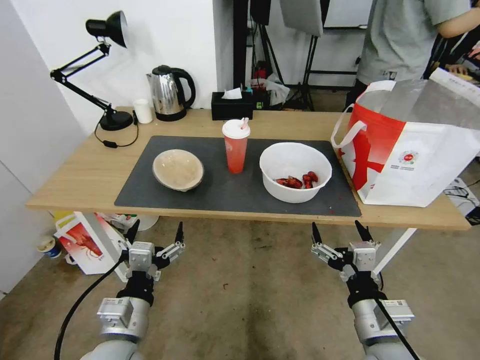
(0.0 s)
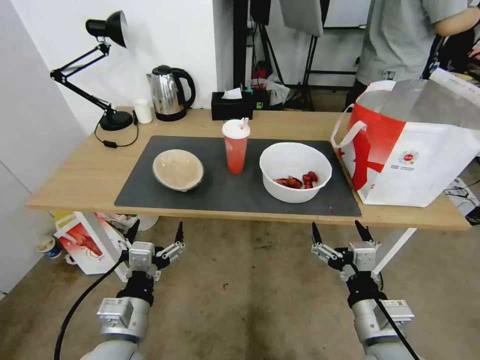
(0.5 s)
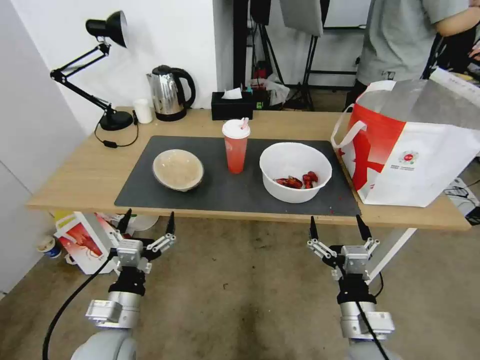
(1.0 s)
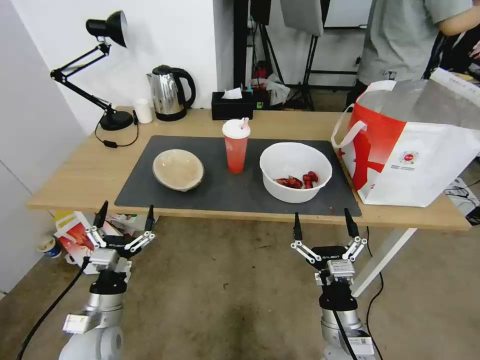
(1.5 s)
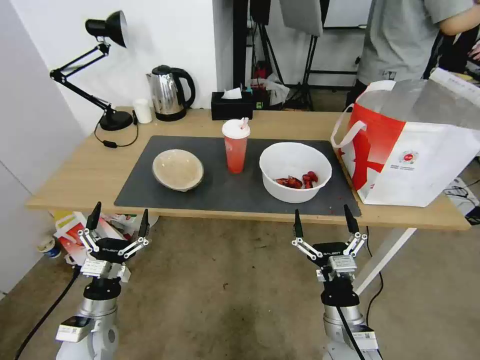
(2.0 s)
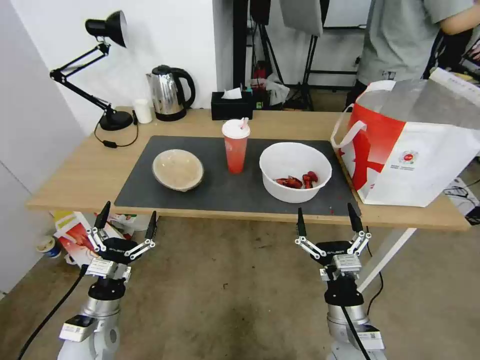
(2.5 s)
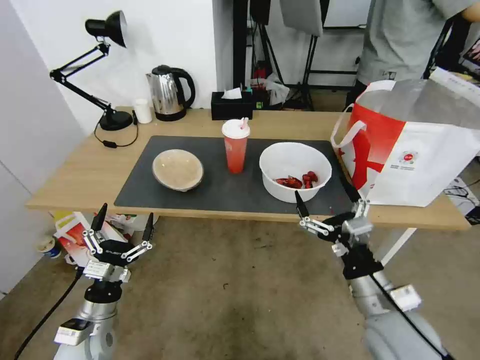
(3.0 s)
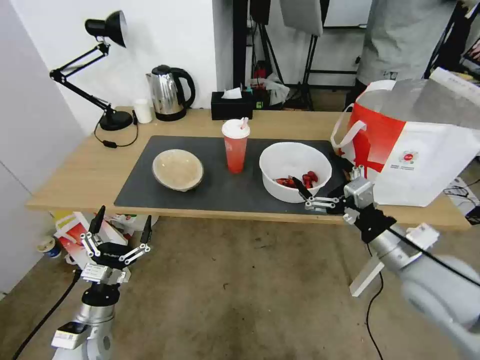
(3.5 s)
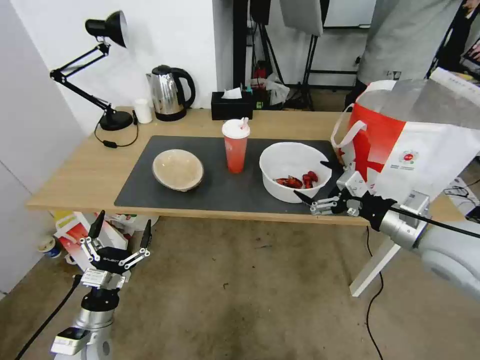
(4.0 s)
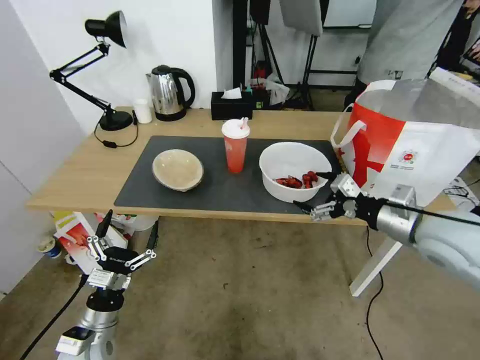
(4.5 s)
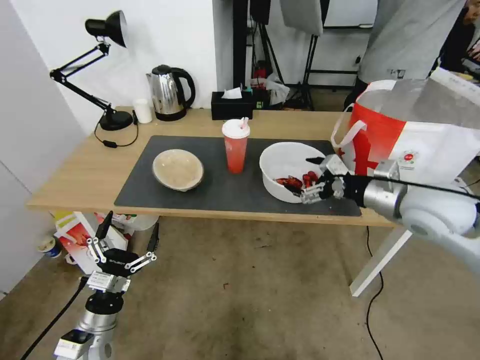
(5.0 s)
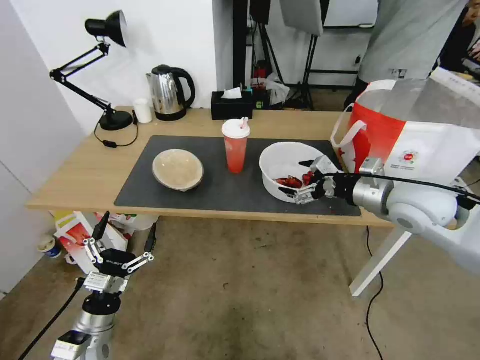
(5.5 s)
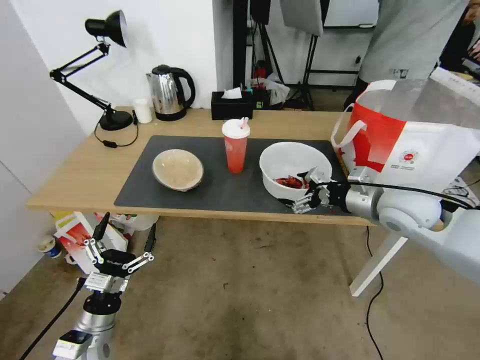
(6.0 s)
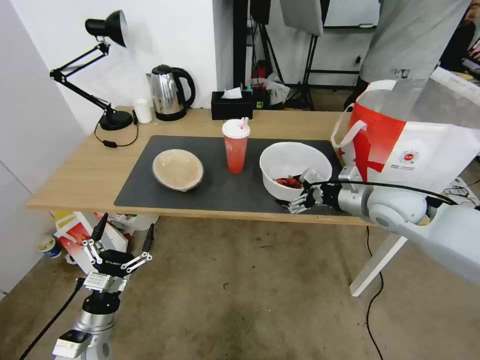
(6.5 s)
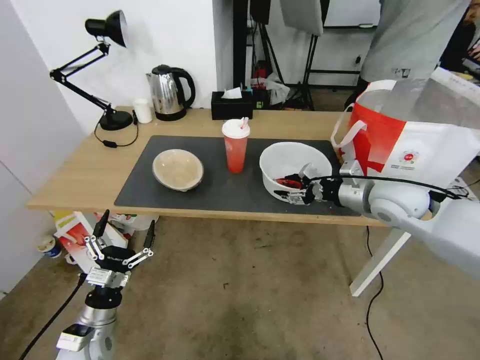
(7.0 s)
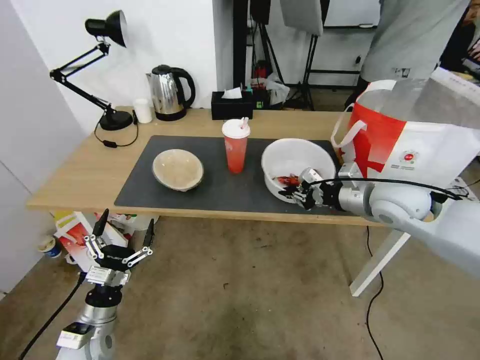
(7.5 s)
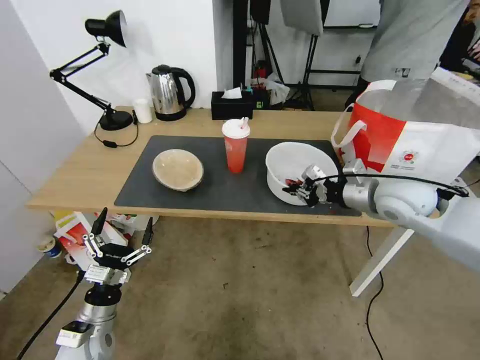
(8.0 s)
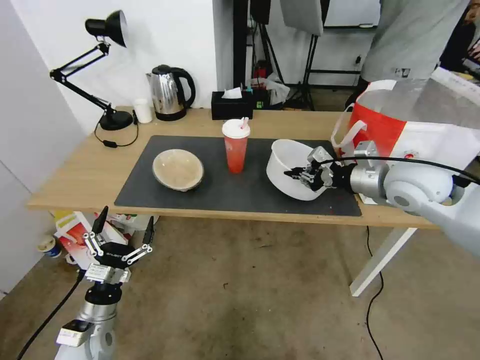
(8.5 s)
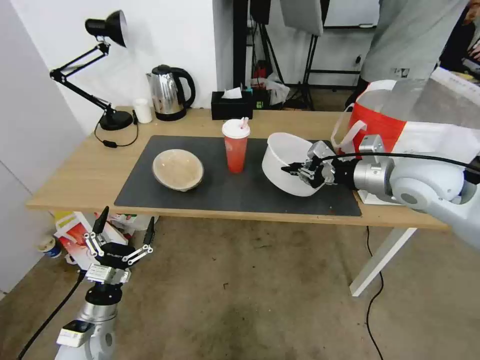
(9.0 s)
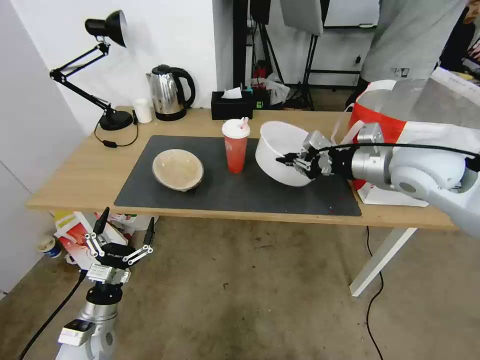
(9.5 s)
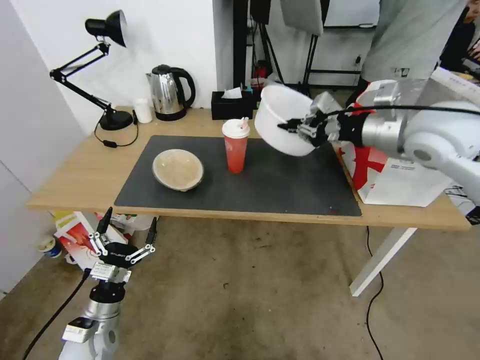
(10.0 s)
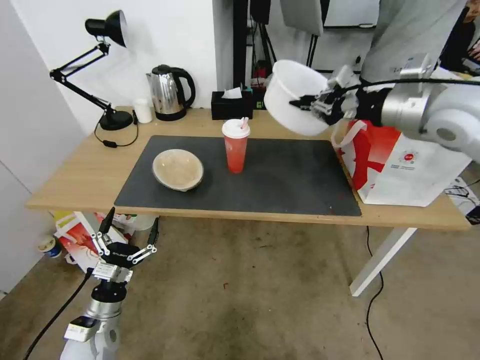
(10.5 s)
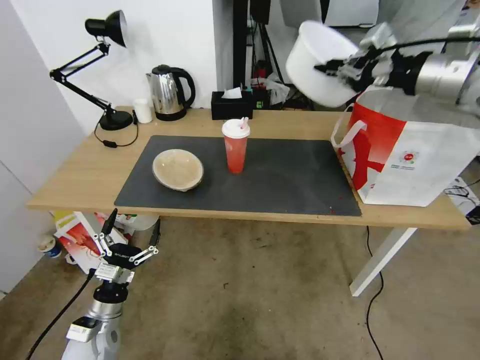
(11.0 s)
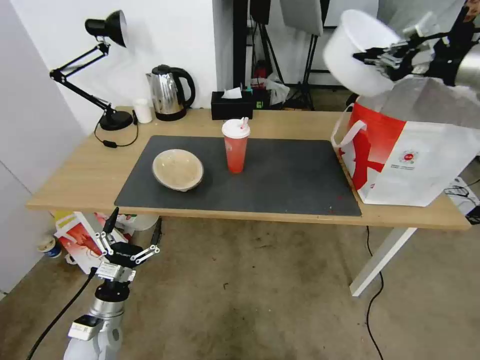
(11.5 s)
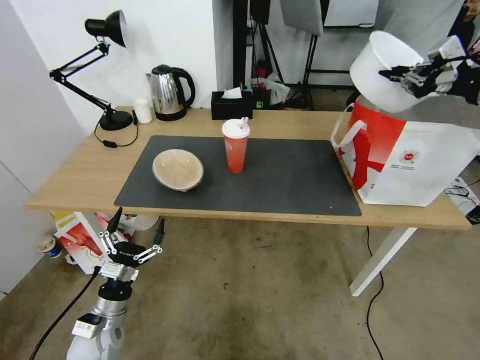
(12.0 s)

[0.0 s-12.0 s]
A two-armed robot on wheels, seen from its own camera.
Task of the whole recording: Pick up the trash from the table and place it into the takeout bag.
2.0 to 4.0 s: The right gripper travels upward, to the right and forward by about 25 cm.
4.0 to 6.0 s: The right gripper travels forward by some 10 cm.
6.0 to 8.0 s: The right gripper closes.
8.0 to 10.0 s: The right gripper goes some 15 cm upward.
10.0 to 12.0 s: The right gripper shifts approximately 15 cm to the right.

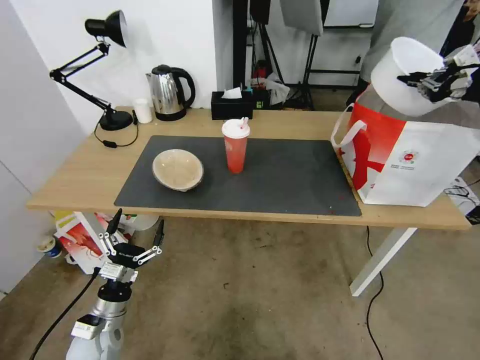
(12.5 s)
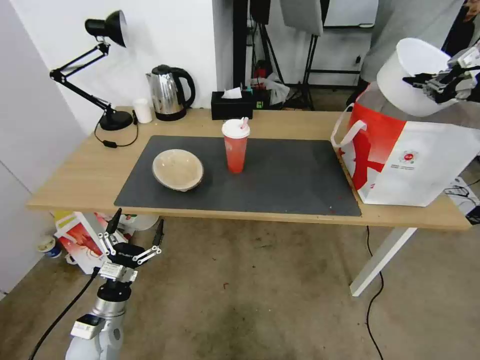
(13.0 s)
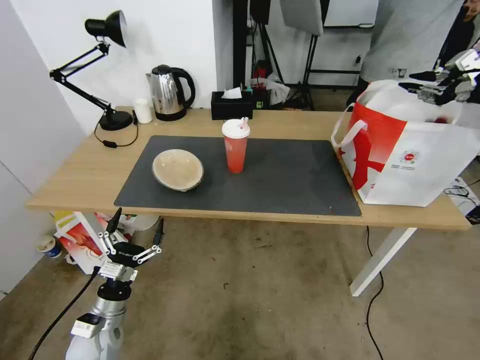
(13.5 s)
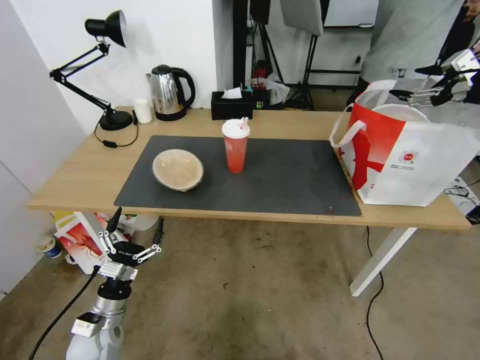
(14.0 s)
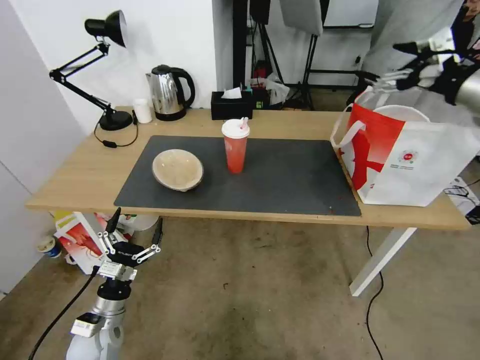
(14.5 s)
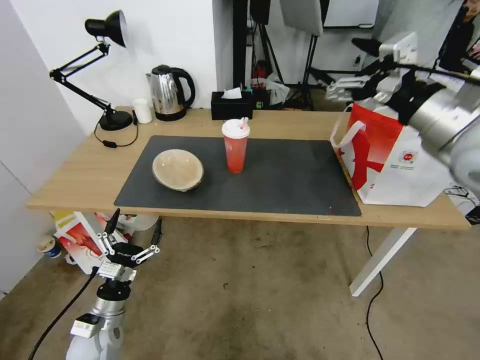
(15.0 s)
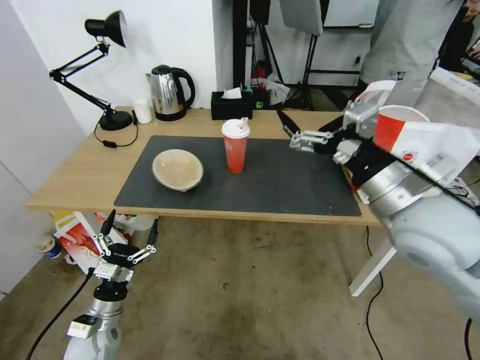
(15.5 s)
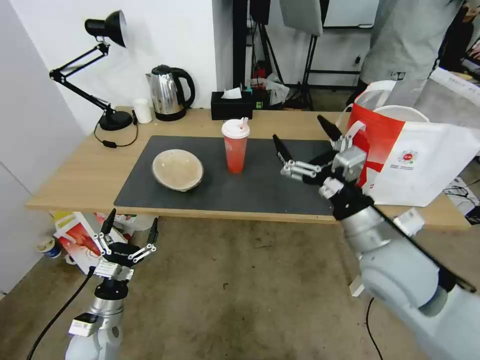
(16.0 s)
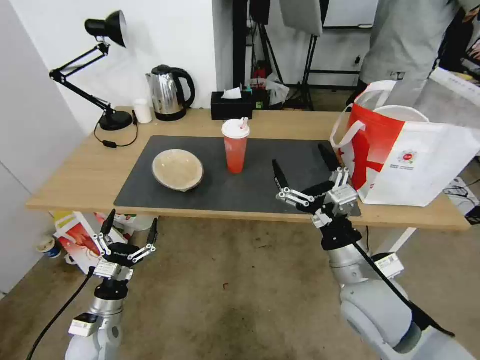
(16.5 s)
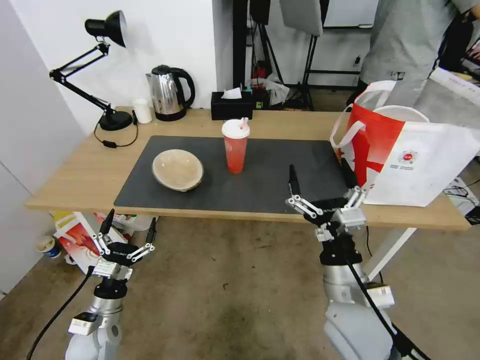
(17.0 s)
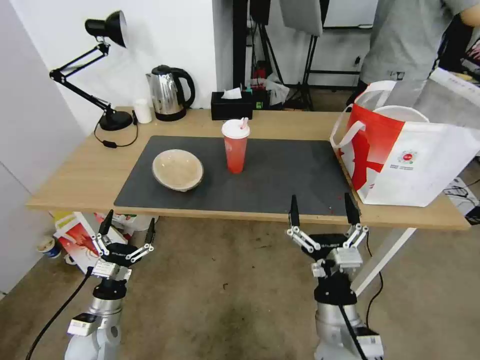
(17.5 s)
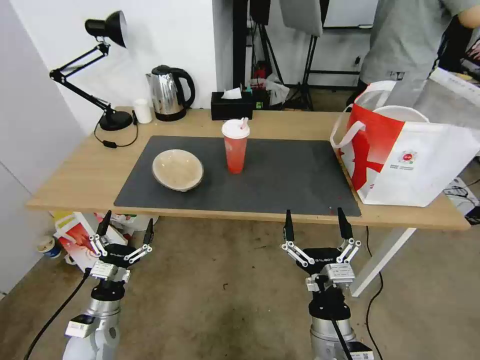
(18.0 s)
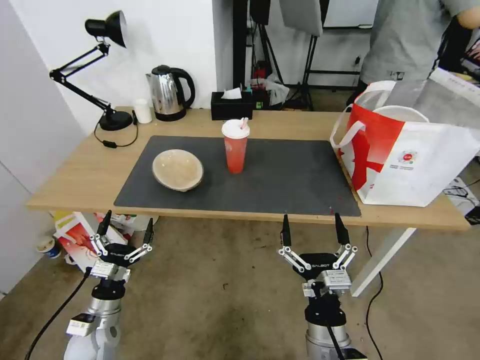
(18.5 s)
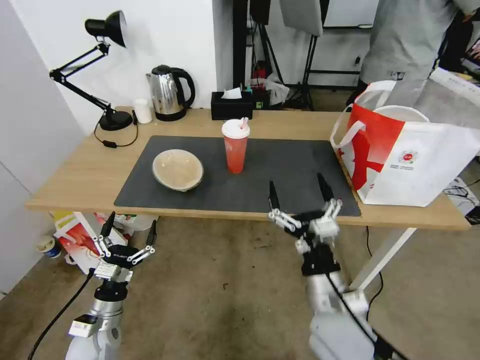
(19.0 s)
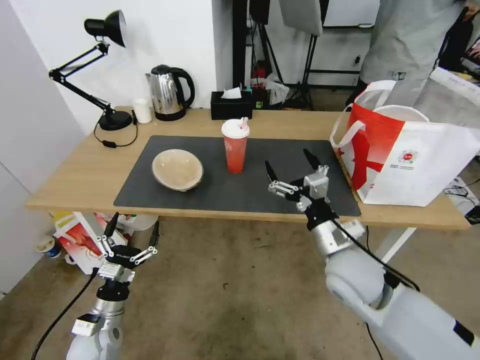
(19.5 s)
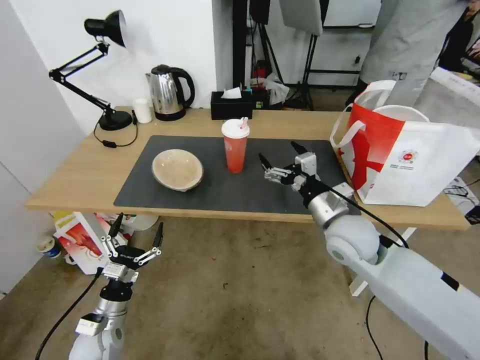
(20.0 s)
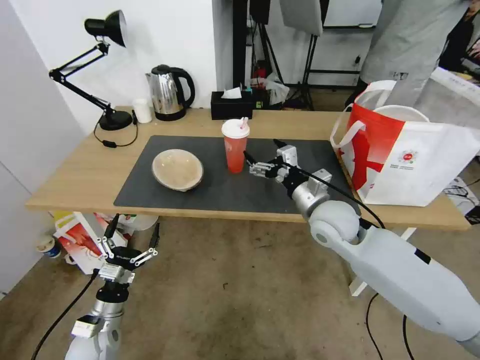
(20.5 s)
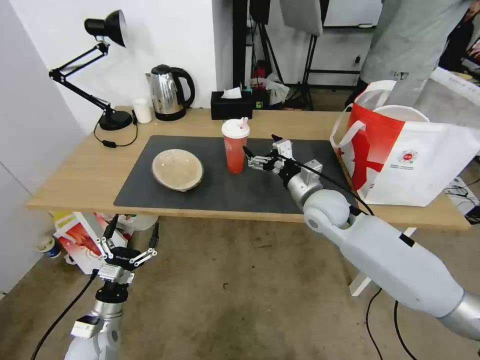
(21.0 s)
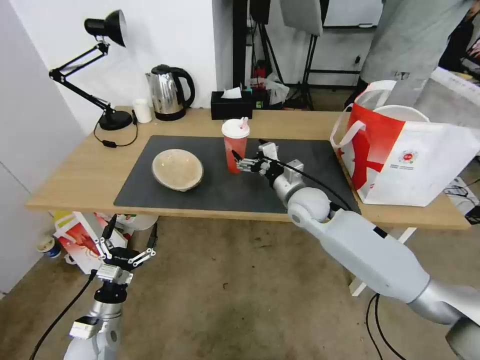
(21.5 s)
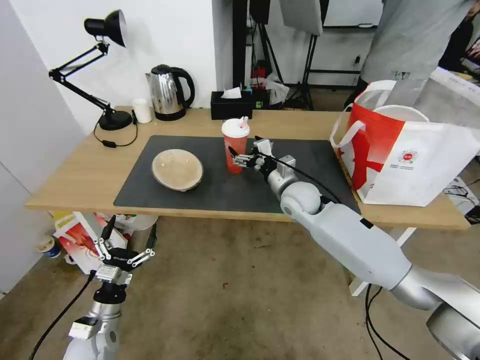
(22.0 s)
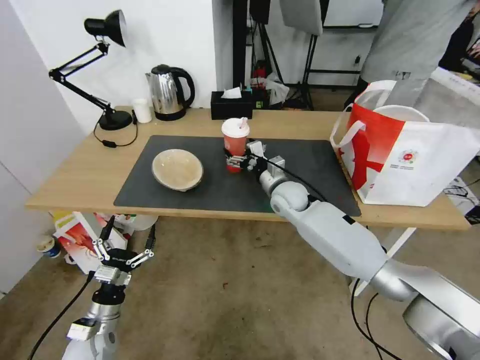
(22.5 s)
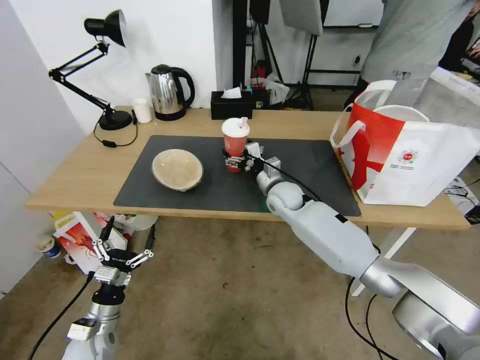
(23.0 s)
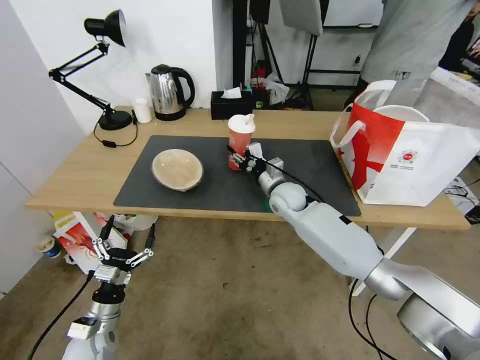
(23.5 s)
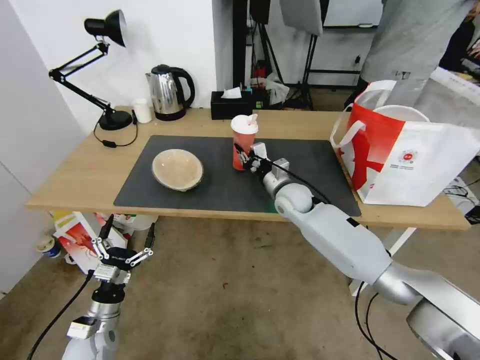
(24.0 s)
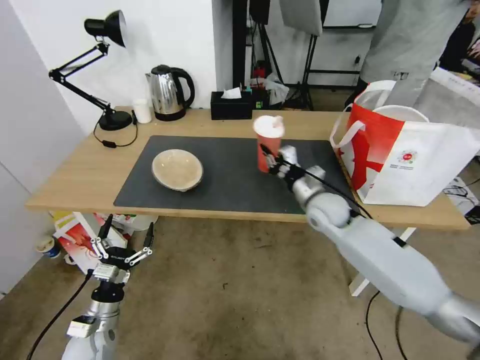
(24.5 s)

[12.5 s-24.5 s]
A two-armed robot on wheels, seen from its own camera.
Task of the whole recording: Pick up the trash from the table and place it into the takeout bag.
12.5 to 14.5 s: The right gripper is displaced to the left by some 10 cm, and opens its fingers.
14.5 to 16.5 s: The right gripper travels downward, to the left and backward by approximately 40 cm.
16.5 to 18.5 s: The right gripper heads downward, backward and to the left, covering about 15 cm.
18.5 to 20.5 s: The right gripper travels forward by about 25 cm.
20.5 to 22.5 s: The right gripper travels forward, to the left and downward by roughly 15 cm.
22.5 to 24.5 s: The right gripper shifts about 10 cm to the right and backward, and closes its fingers.

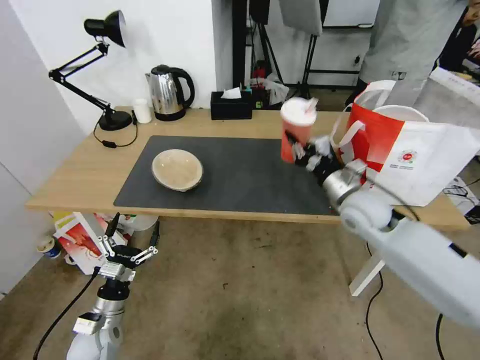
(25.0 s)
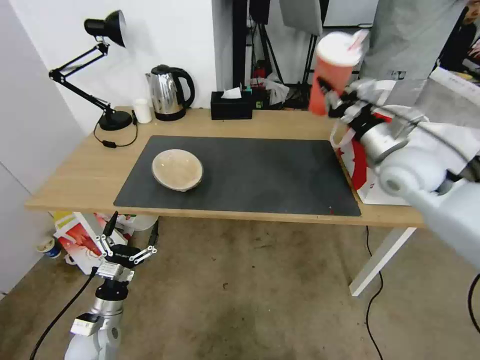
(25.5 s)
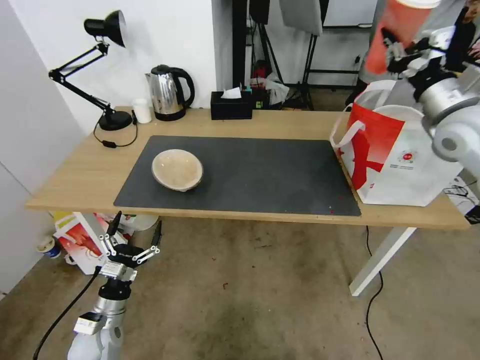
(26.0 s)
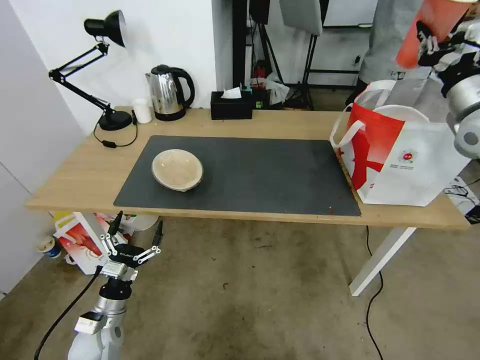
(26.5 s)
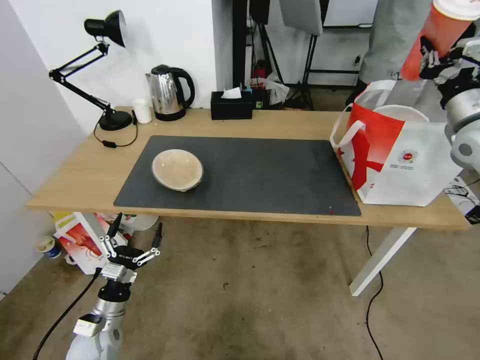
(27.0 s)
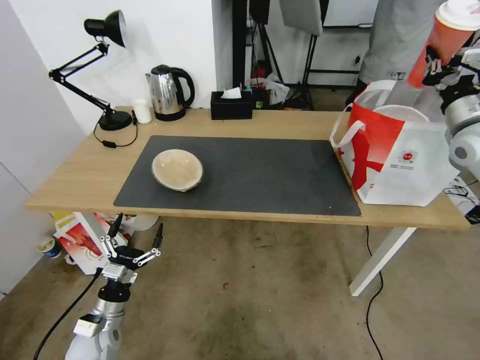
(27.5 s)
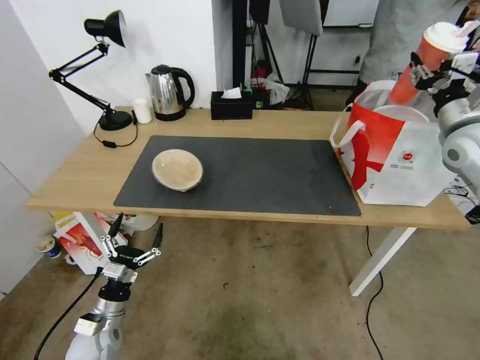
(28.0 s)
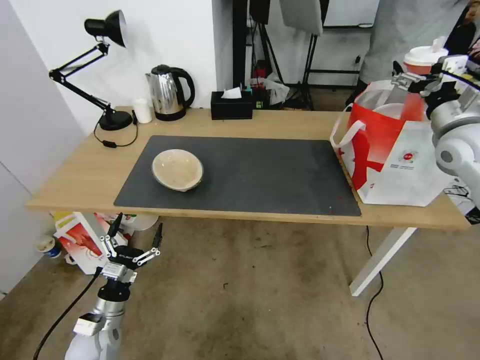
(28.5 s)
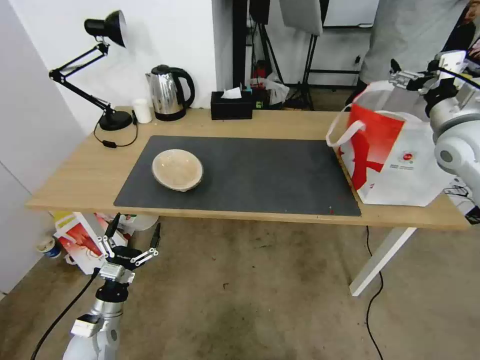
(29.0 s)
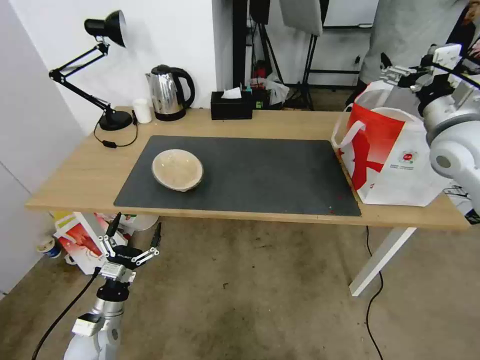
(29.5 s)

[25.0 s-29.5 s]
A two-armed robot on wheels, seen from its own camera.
Task of the whole recording: Pick up the trash from the table and place it into the takeout bag.
25.0 to 27.0 s: The right gripper heads to the right and upward, covering about 25 cm.
27.0 to 29.5 s: The right gripper heads to the left, covering roughly 5 cm, and opens.
